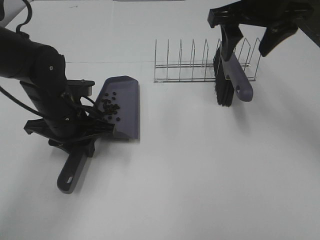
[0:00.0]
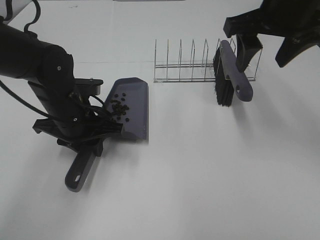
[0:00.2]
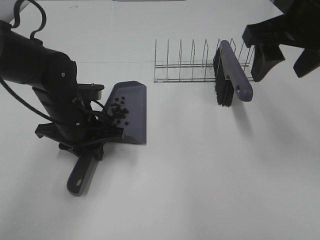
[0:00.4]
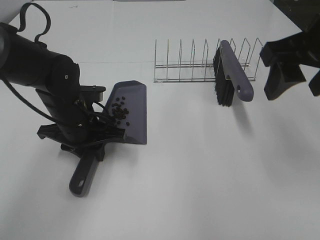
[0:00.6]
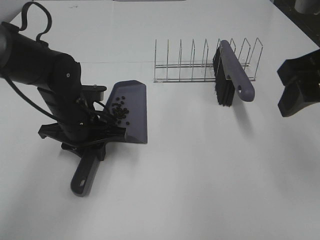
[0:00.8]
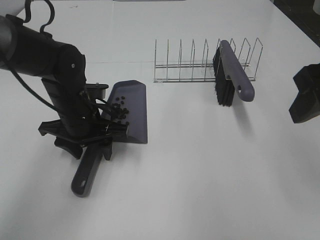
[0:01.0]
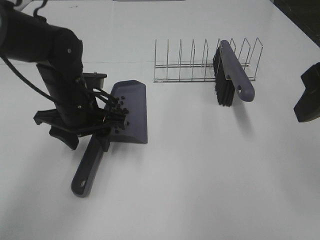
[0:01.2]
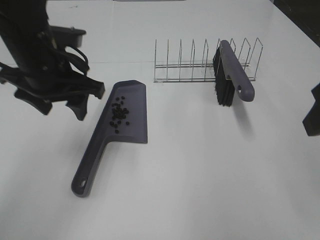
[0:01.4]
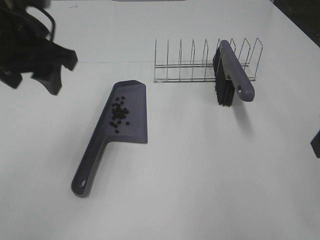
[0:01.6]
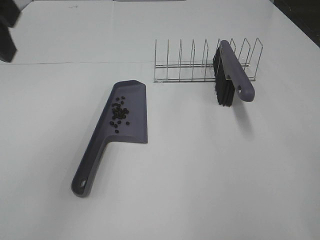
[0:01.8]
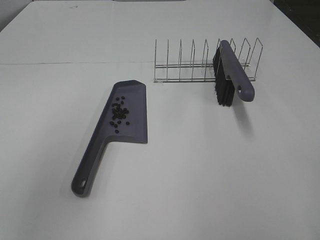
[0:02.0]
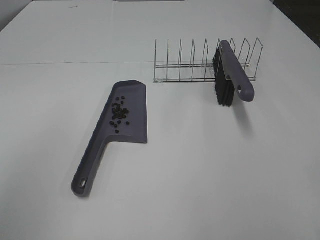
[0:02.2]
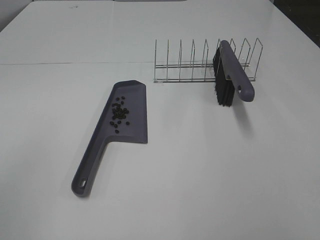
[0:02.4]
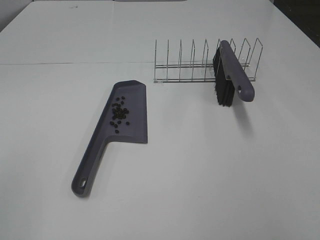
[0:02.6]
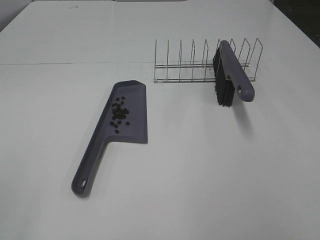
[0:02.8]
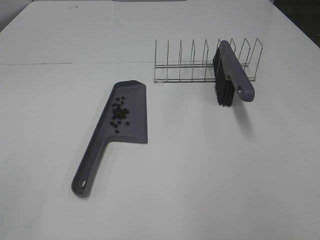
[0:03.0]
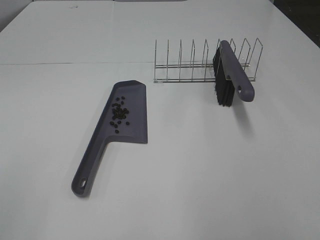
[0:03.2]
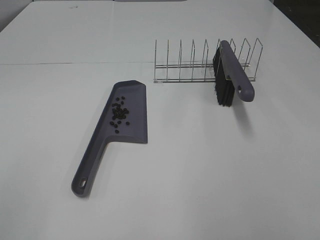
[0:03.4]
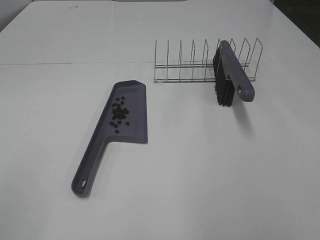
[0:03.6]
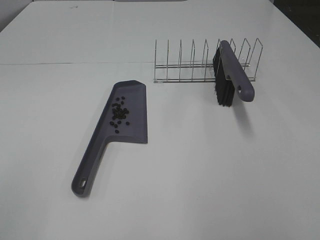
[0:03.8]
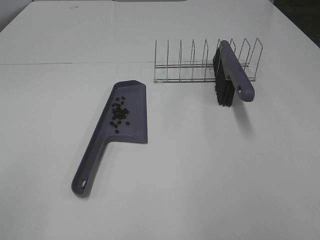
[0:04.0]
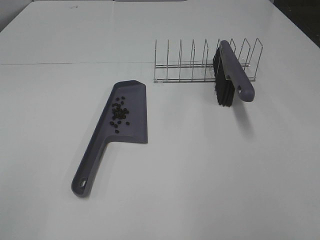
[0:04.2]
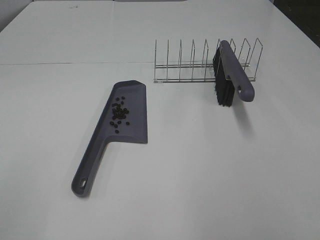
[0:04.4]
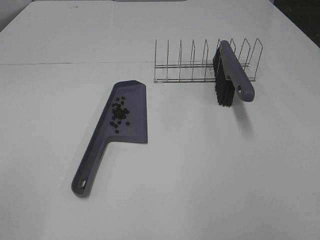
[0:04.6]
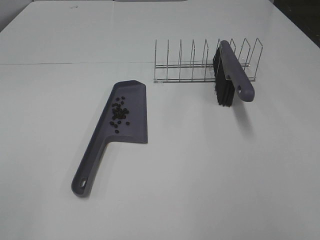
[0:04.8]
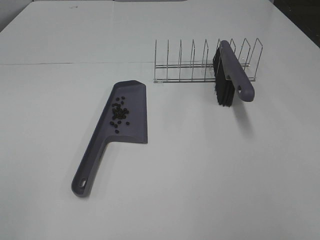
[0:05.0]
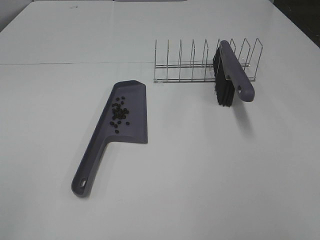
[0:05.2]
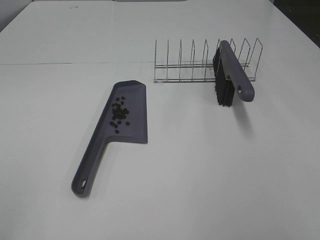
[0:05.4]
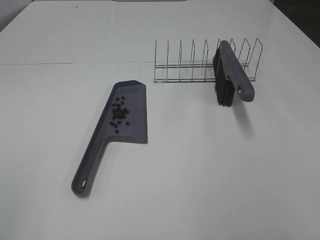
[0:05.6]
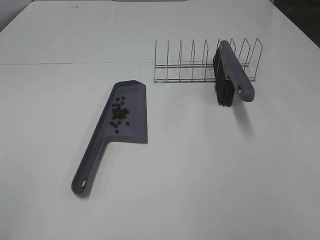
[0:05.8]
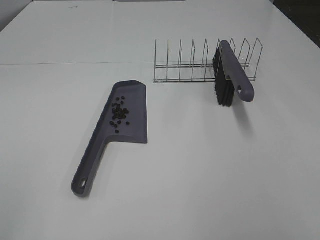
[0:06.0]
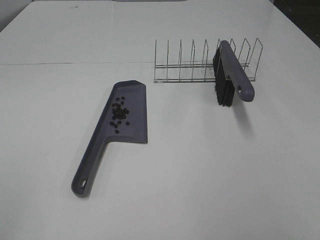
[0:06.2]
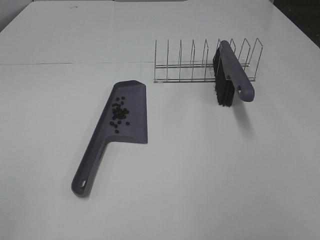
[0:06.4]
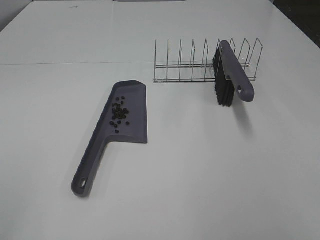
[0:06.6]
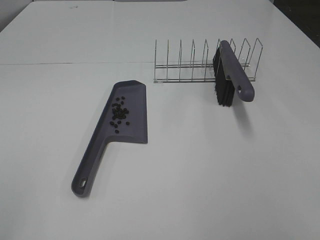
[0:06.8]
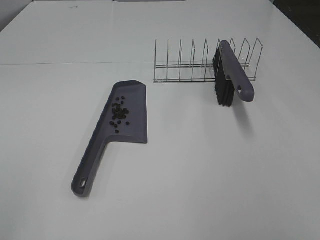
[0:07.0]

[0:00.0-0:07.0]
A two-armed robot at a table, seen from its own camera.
Task of the whole recording: Sweep Coffee Bean.
0:00.0 to 0:01.4: The right gripper shifts approximately 20 cm backward. The left gripper is displaced upward by about 10 cm, and opens its fingers.
0:01.4 to 0:02.8: The right gripper goes roughly 15 cm backward. Meanwhile the left gripper travels backward and to the left by roughly 35 cm.
0:05.6 to 0:07.0: Both grippers stay put.

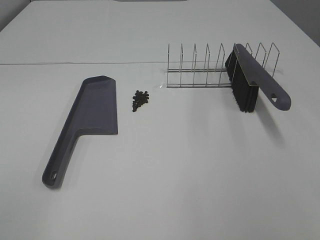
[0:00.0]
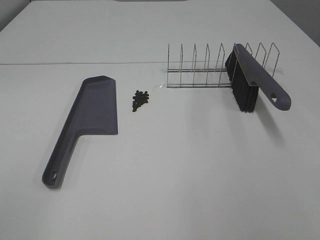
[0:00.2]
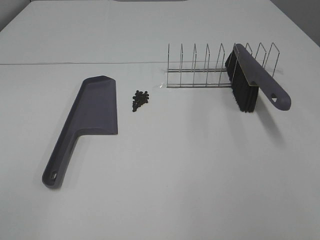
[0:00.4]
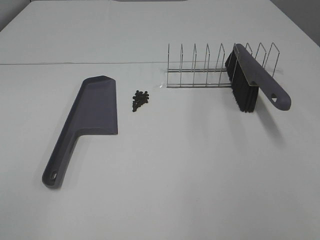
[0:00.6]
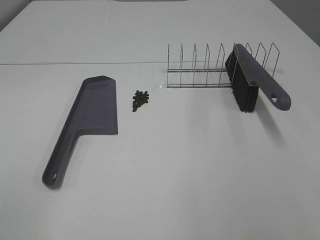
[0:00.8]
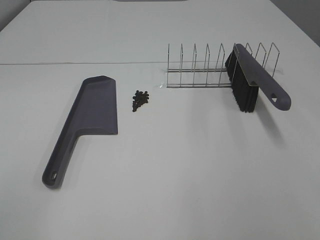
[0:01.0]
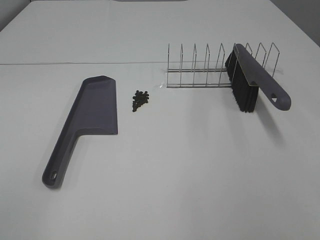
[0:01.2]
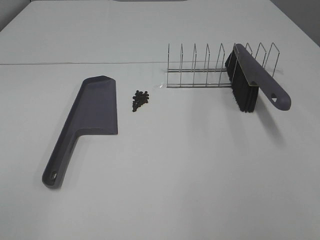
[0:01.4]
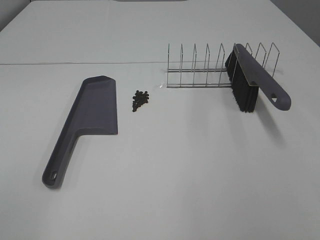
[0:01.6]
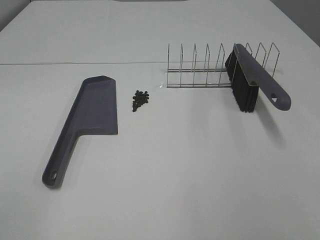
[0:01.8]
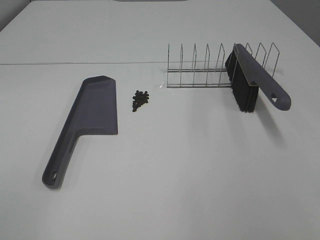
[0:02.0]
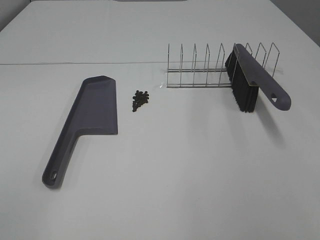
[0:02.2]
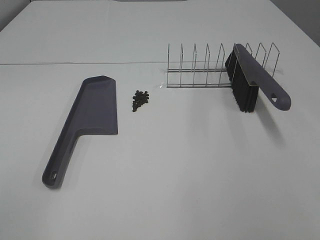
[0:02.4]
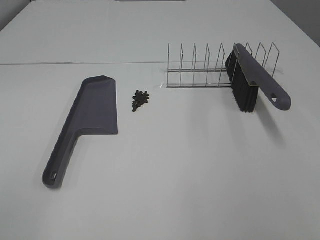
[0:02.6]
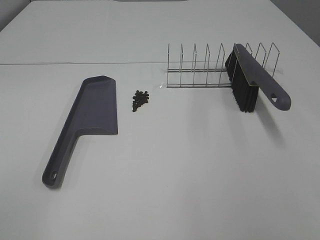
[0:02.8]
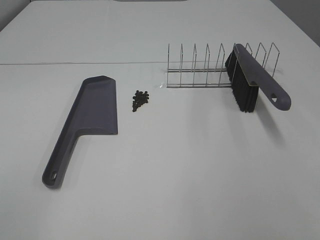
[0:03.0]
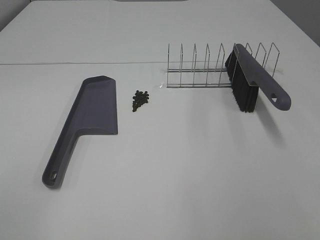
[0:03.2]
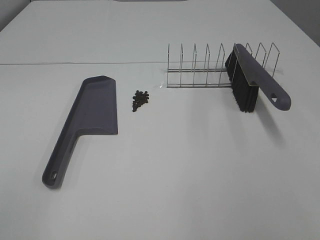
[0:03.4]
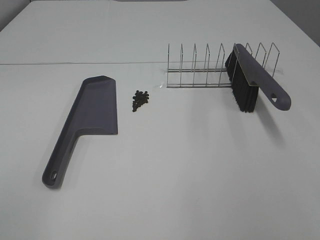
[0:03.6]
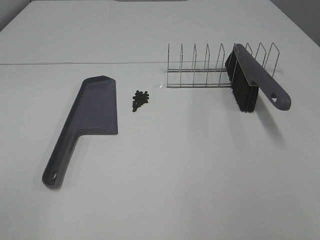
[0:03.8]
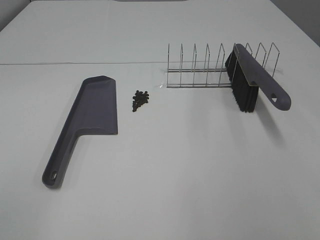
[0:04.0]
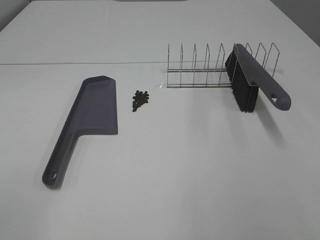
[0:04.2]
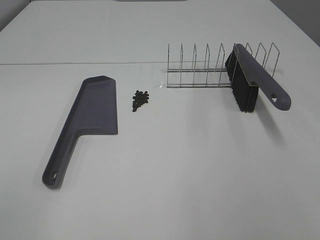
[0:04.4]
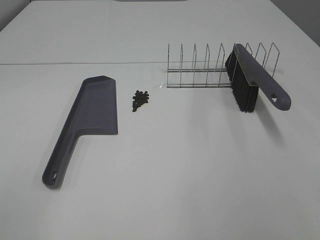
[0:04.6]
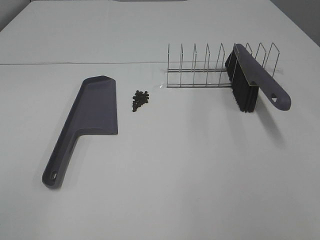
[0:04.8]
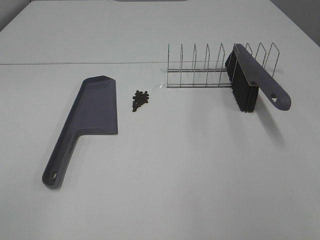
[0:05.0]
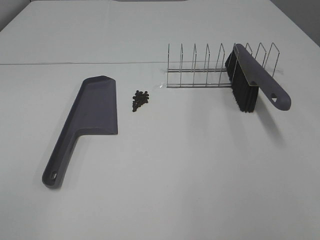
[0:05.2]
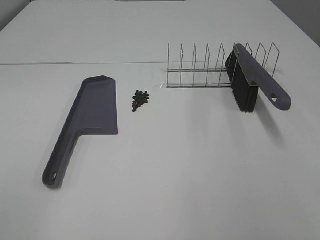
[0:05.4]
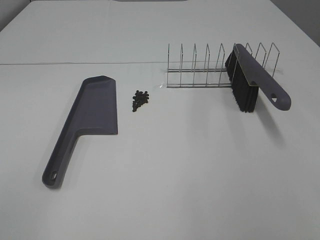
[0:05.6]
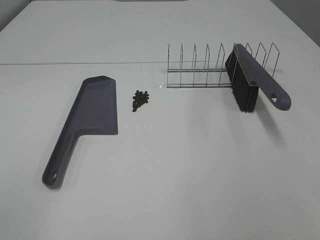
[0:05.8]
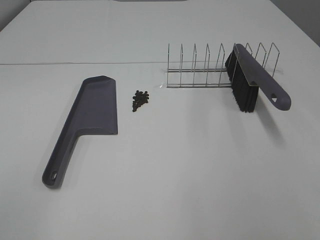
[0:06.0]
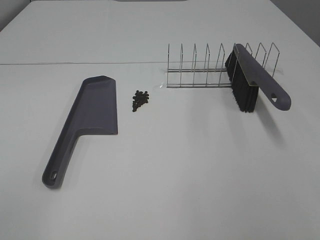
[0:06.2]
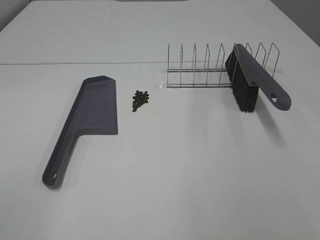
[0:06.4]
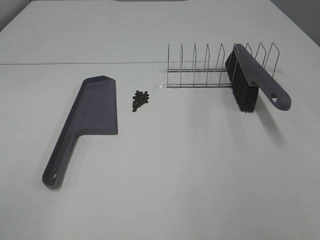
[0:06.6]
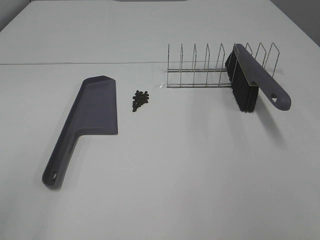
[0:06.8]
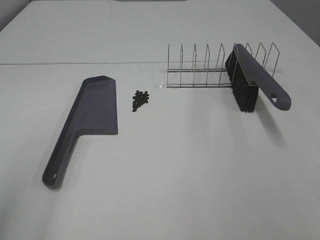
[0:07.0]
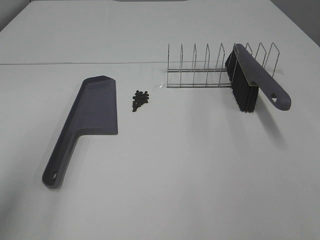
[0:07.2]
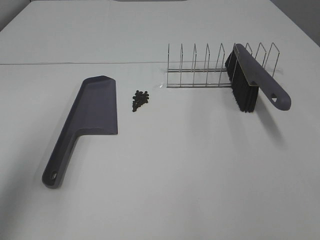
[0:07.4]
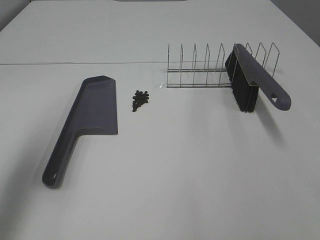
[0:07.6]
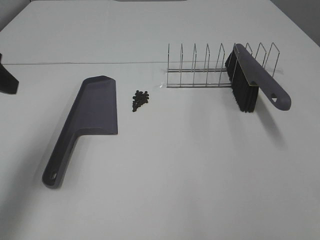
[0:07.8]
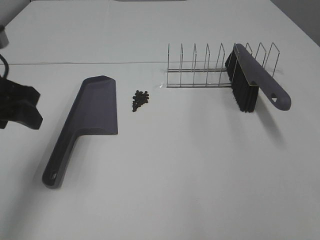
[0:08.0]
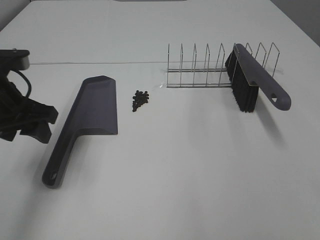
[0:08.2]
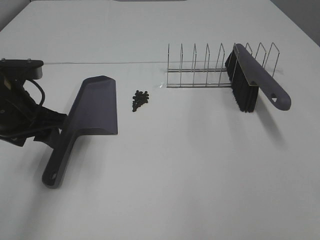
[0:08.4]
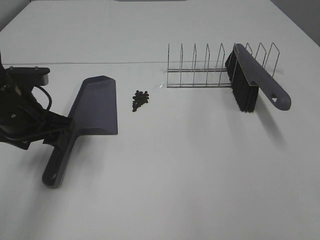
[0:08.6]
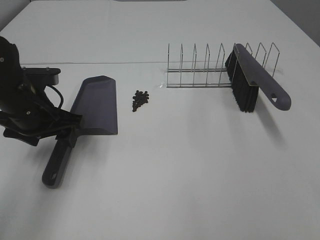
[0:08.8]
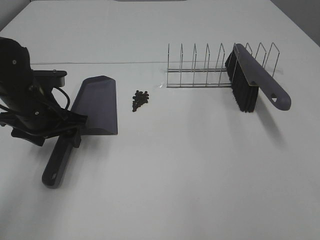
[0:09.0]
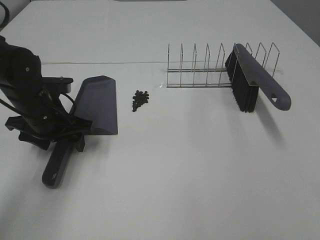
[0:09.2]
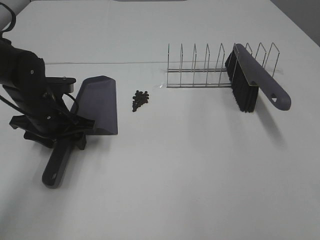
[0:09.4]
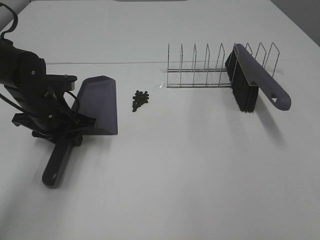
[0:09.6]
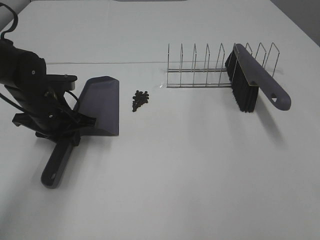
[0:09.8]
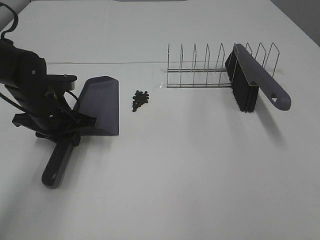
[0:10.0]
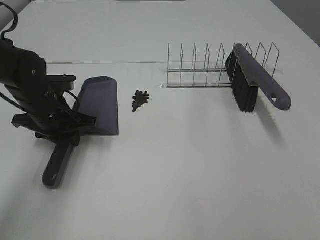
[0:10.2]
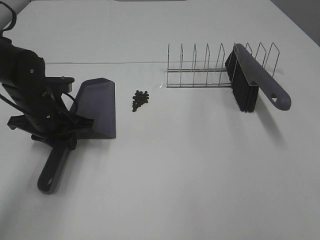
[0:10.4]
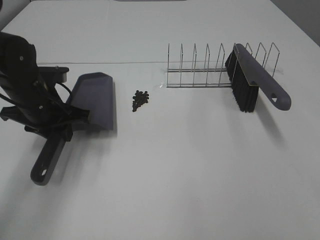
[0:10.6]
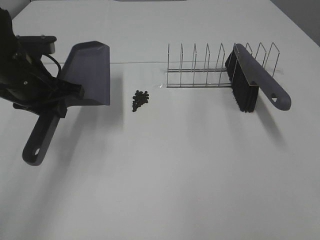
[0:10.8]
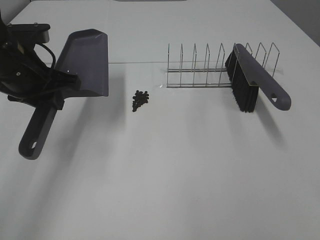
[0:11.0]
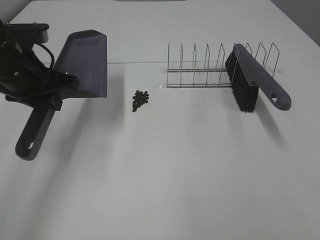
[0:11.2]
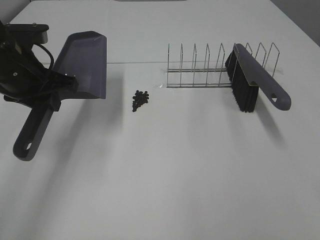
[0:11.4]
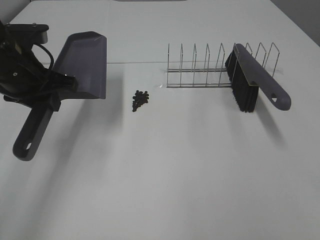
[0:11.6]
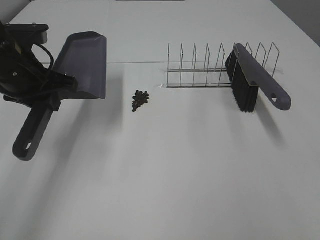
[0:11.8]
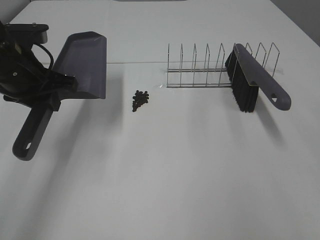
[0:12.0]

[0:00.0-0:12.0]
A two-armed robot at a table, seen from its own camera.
Task of the whole recording: Sweep Coffee Bean.
Step, 0:00.0 to 0:09.8: Left hand: grab the dustpan.
0:00.0 to 0:06.0: The two grippers keep their place.
0:06.0 to 0:07.6: The left gripper shifts roughly 25 cm forward.
0:07.6 to 0:09.0: The left gripper heads downward, forward and to the right, covering approximately 20 cm.
0:09.0 to 0:10.4: The left gripper closes its fingers.
0:10.4 to 0:12.0: The left gripper travels upward by approximately 10 cm, while the right gripper shifts approximately 10 cm forward.

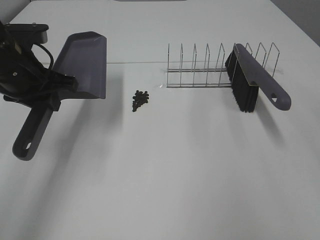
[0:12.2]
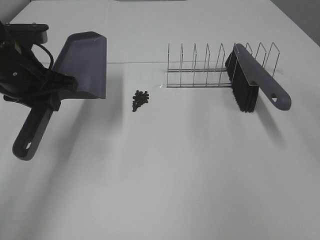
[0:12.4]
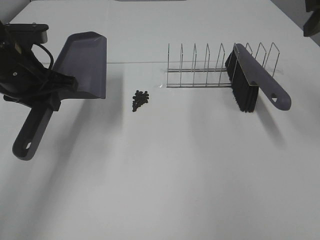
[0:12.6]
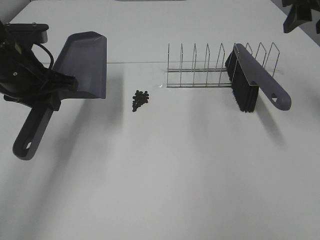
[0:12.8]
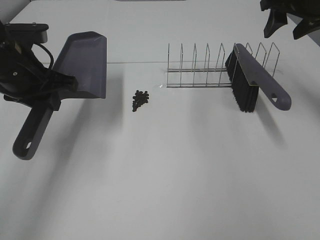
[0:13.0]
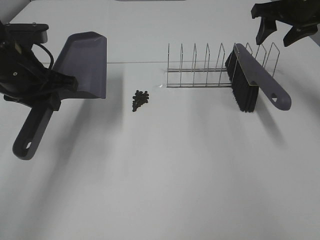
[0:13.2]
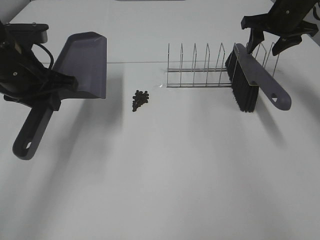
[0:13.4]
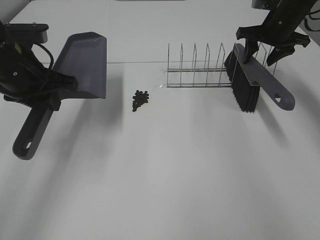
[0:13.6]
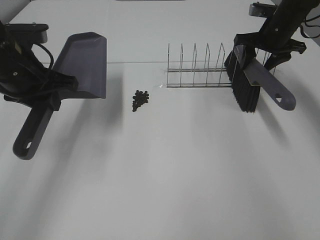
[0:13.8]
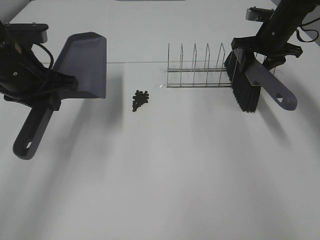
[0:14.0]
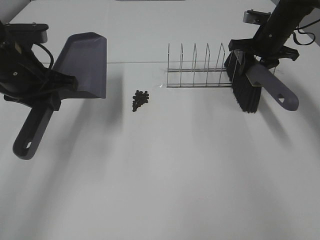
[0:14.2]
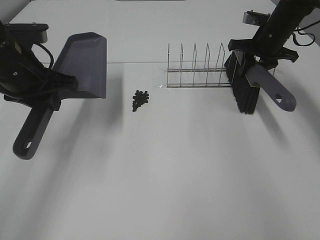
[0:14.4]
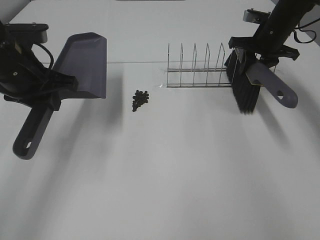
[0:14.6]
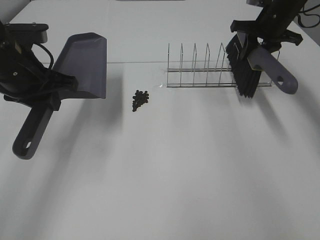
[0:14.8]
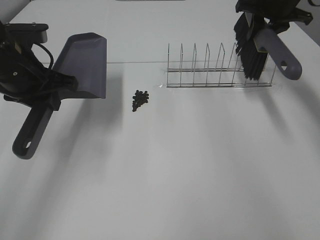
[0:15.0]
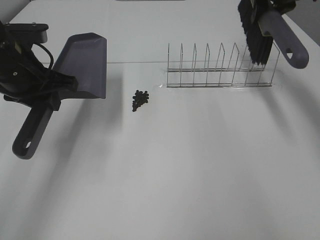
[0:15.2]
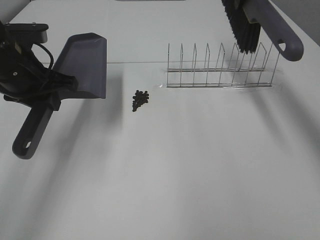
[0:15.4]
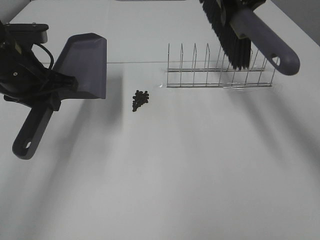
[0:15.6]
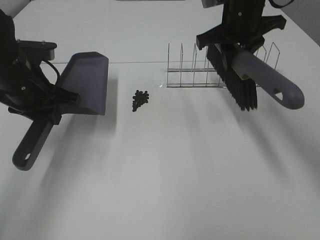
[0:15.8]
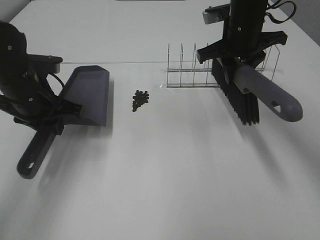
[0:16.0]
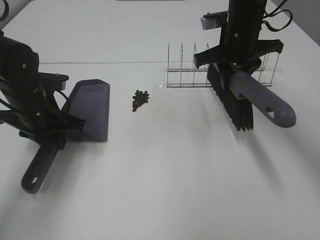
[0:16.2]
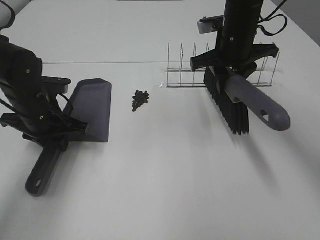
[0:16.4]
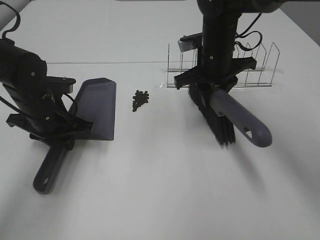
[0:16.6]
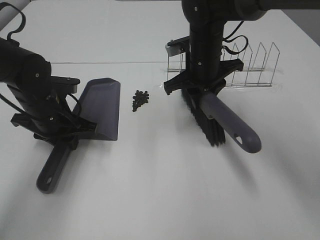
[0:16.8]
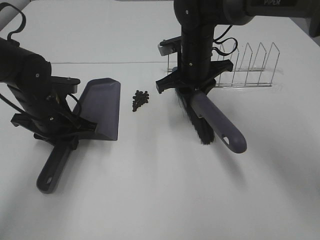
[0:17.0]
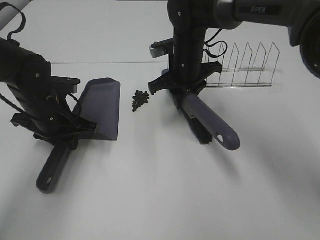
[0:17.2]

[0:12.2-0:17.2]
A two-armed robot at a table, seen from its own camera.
Task of the whole recording: Sweep Coffee Bean.
Step, 0:12.2 to 0:14.4: Right hand:grab the broom.
0:12.2 to 0:13.8: The right gripper is displaced forward and downward by roughly 40 cm.
0:13.8 to 0:15.6: The right gripper travels upward, to the left and backward by roughly 20 cm, and closes.
0:15.6 to 0:17.2: The left gripper moves downward, some 10 cm; the right gripper goes about 20 cm downward and to the left.
